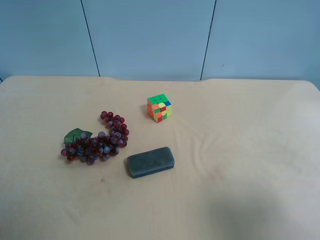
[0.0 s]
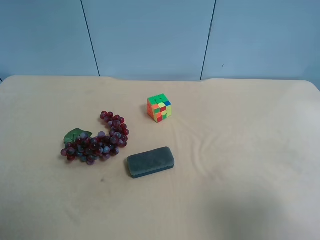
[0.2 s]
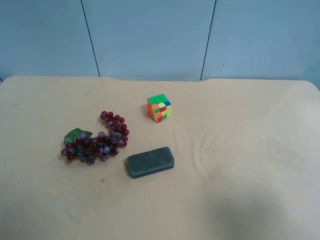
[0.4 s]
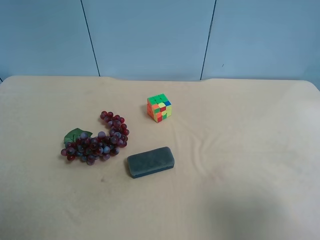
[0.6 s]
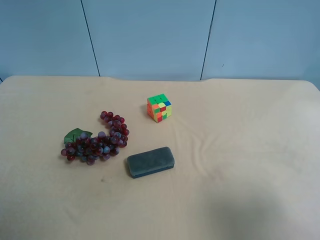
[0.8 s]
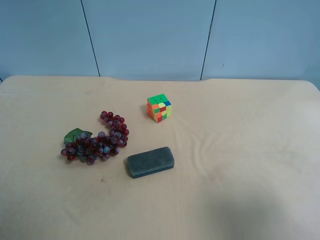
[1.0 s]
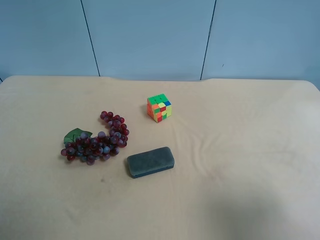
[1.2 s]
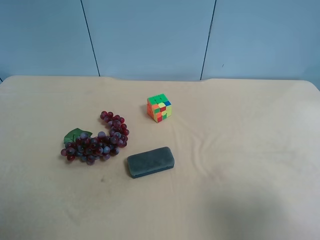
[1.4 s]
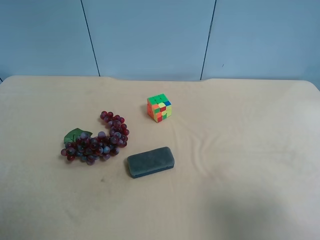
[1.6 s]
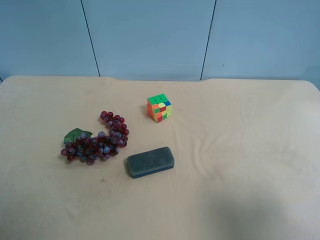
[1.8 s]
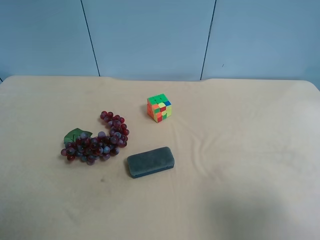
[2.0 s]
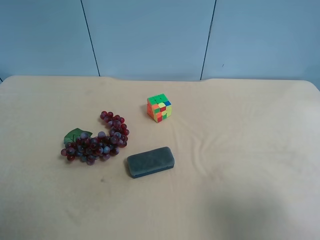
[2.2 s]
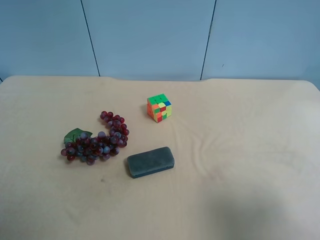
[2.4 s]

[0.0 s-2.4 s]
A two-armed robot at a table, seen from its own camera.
Task of the whole recording: use the right gripper to pick up the item and transfer it from the right gripper to the left gripper.
1.2 to 2.4 s: The two grippers keep their place.

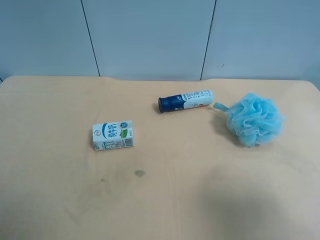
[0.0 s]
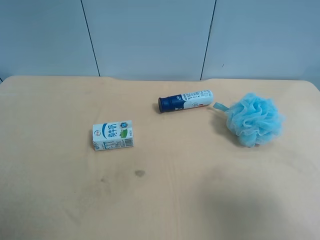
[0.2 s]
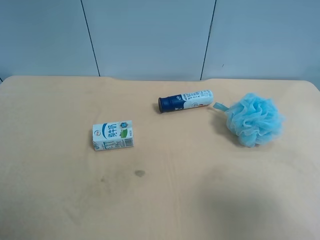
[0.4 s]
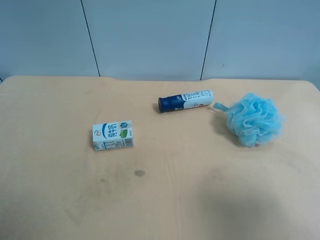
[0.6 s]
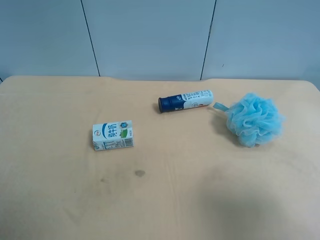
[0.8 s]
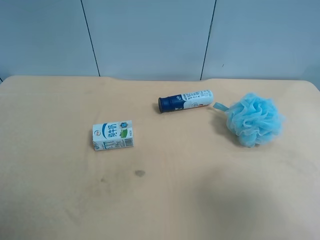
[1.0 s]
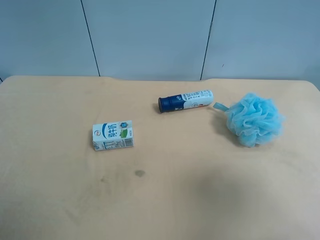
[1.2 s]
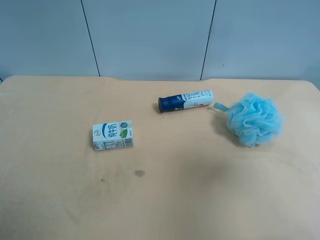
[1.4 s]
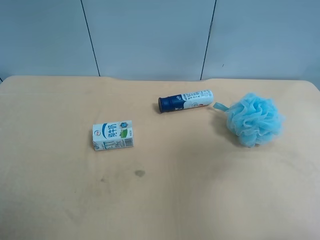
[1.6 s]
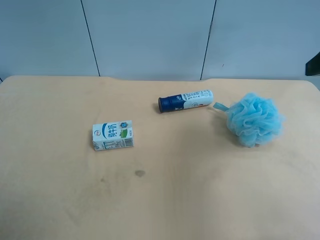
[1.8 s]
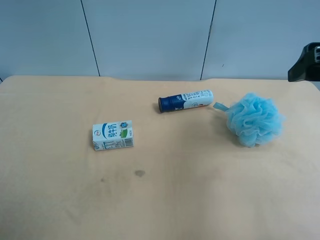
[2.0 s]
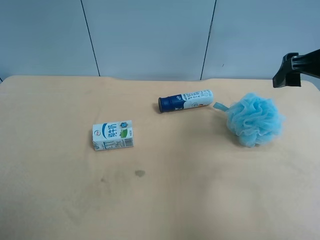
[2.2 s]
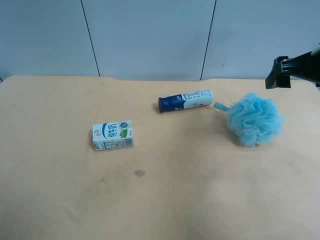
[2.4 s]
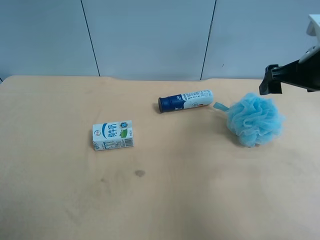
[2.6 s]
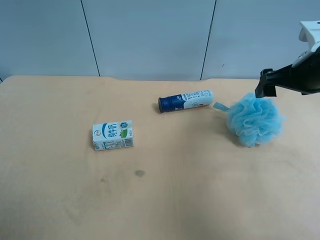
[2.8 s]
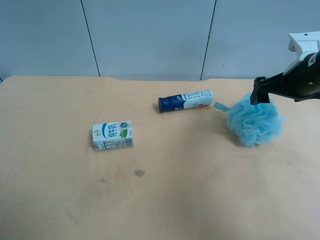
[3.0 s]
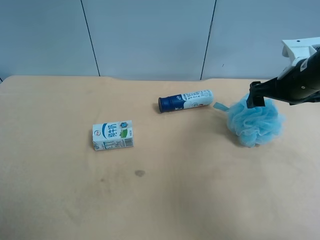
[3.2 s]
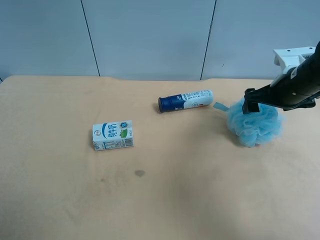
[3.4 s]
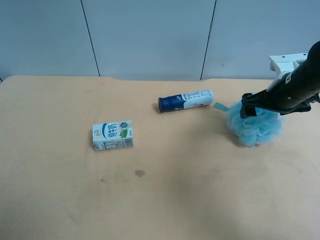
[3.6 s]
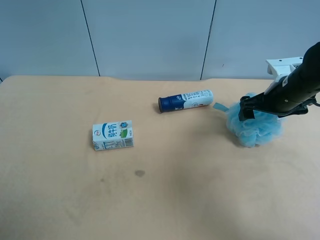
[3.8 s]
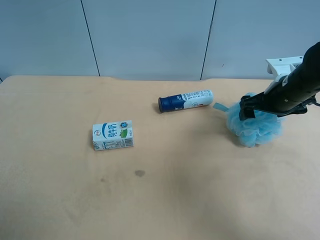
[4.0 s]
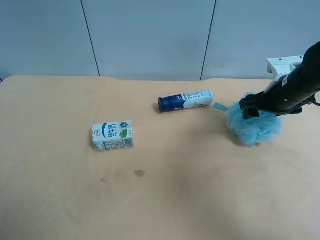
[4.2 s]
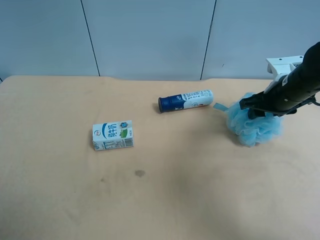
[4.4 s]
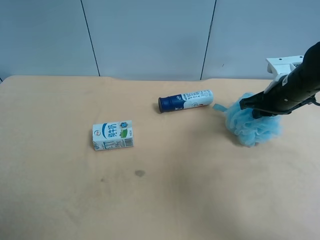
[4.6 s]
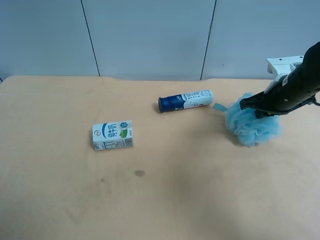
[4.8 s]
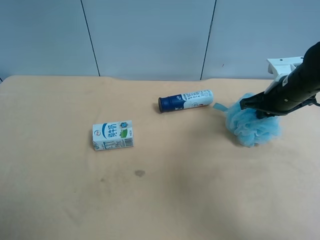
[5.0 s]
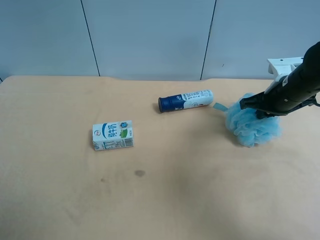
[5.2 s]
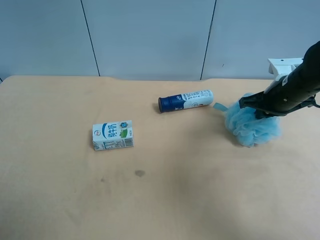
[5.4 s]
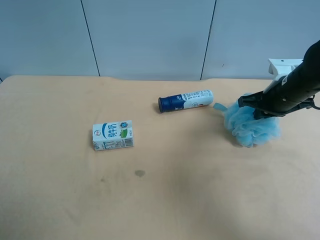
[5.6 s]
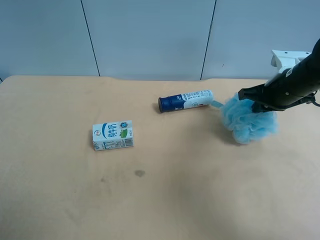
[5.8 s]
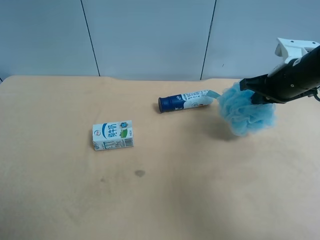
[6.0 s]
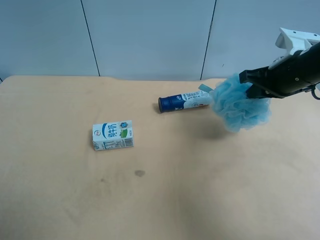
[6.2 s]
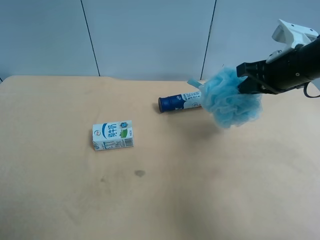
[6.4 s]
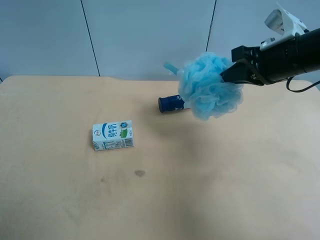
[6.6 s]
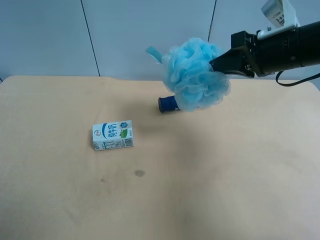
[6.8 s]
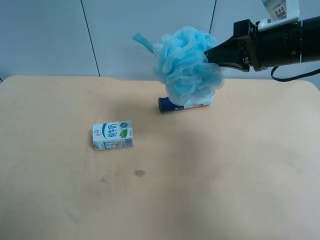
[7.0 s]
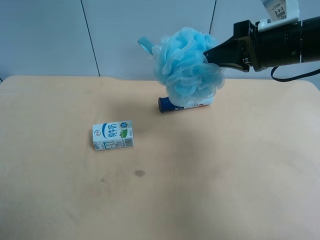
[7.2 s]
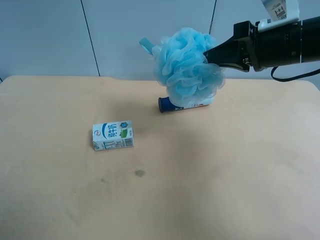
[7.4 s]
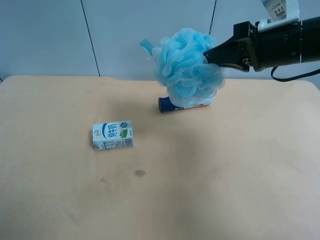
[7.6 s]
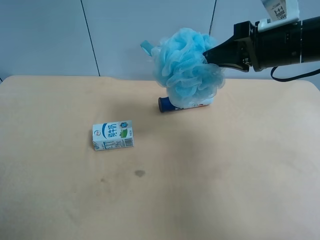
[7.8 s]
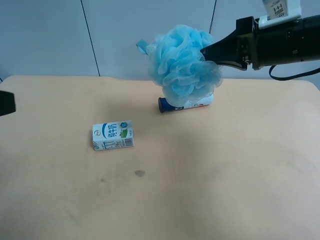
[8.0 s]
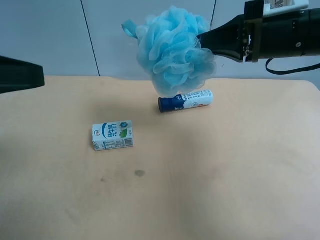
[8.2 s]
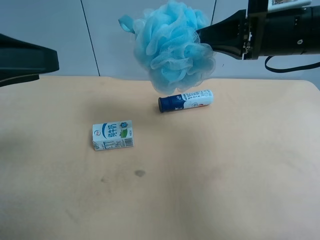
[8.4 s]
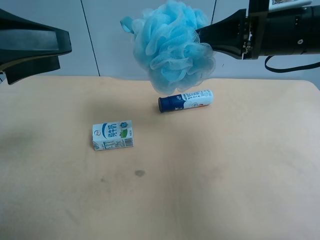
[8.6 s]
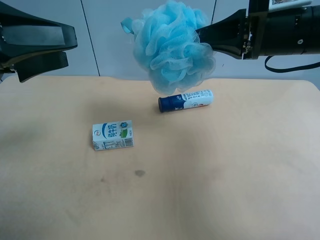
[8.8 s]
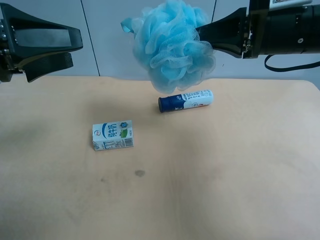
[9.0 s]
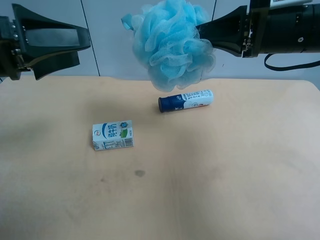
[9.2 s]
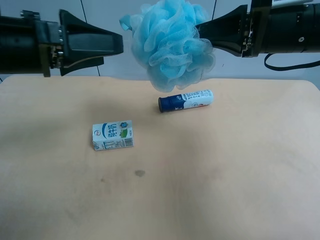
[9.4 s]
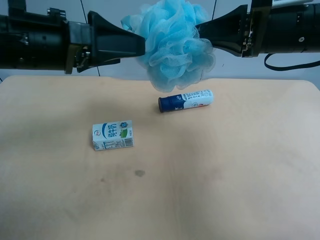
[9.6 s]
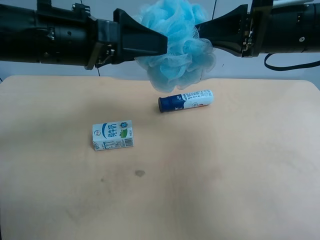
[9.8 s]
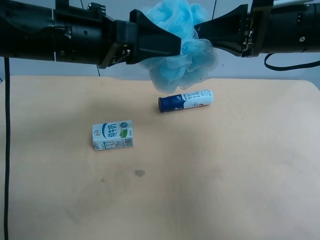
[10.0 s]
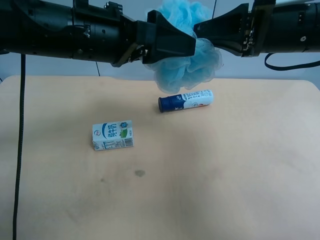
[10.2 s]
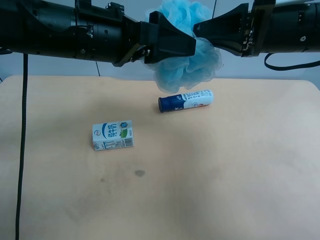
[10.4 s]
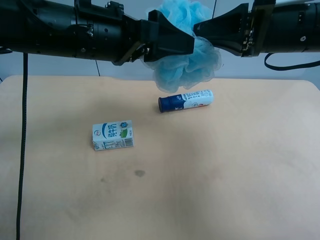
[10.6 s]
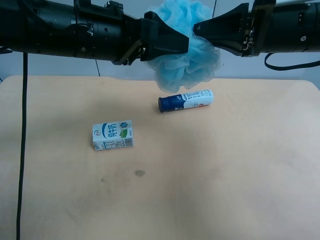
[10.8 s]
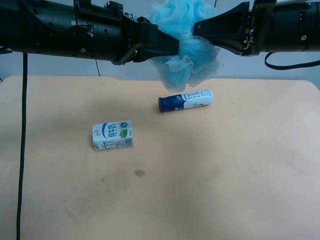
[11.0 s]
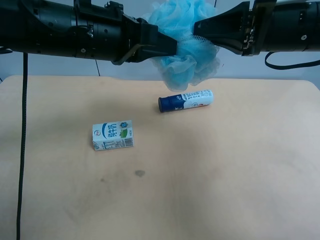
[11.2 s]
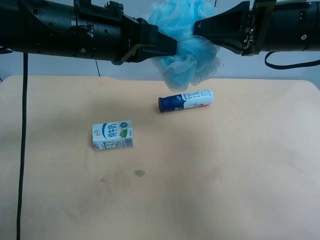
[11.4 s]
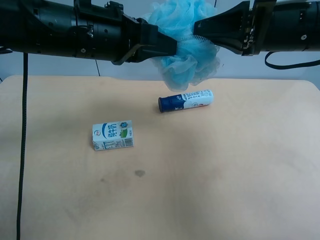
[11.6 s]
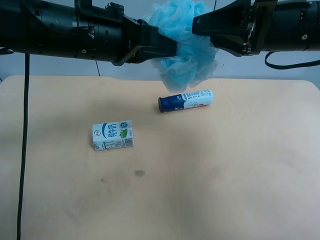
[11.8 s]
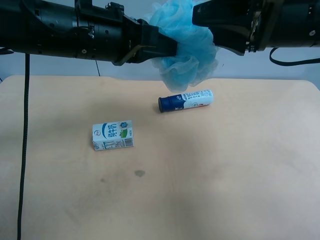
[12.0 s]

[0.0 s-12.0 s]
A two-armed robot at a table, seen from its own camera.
Task of the whole recording: use the right gripper to pick up the item and transfer it from the right gripper to the left gripper.
0.0 to 1.6 s: The right gripper goes about 15 cm forward and upward.
1.6 to 3.0 s: The right gripper shifts roughly 20 cm forward and downward.
3.0 to 4.4 s: The right gripper is displaced downward by about 5 cm, and closes.
4.4 to 6.0 s: The right gripper closes up.
6.0 to 7.6 s: The right gripper is displaced upward and to the left by roughly 10 cm.
7.6 to 9.0 s: The left gripper moves forward, approximately 15 cm.
9.0 to 10.4 s: The left gripper travels to the right by some 15 cm.
10.4 to 12.0 s: The left gripper closes up; the right gripper opens.

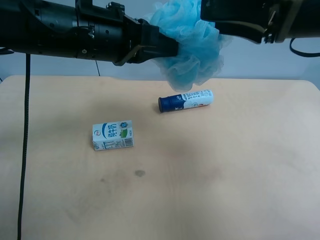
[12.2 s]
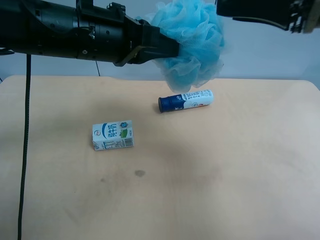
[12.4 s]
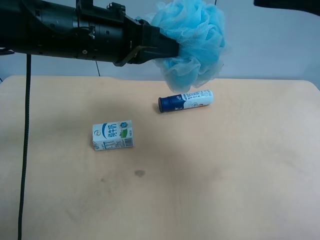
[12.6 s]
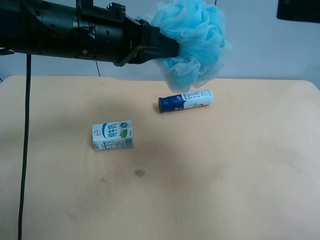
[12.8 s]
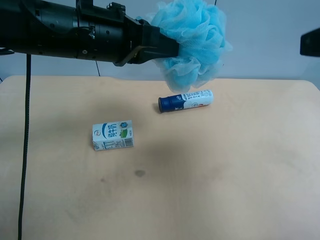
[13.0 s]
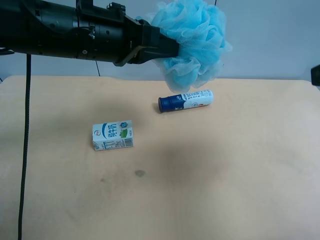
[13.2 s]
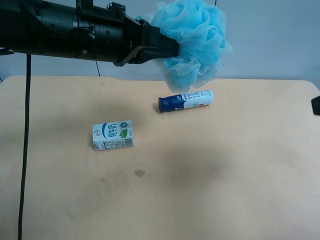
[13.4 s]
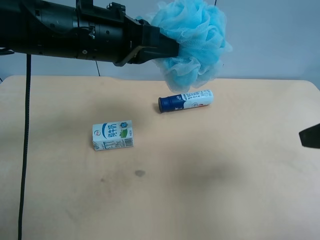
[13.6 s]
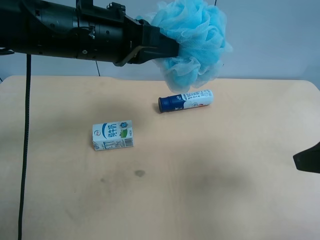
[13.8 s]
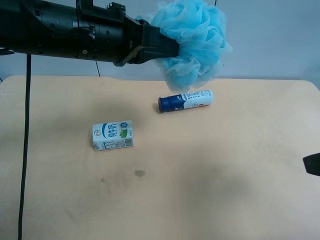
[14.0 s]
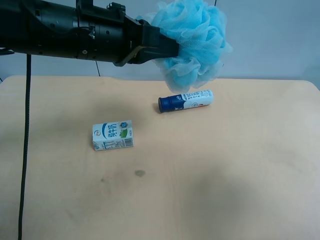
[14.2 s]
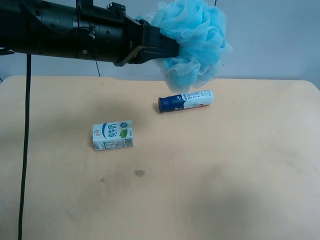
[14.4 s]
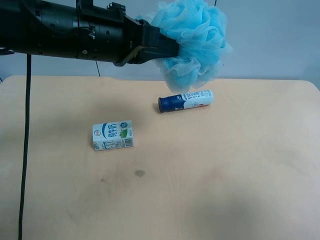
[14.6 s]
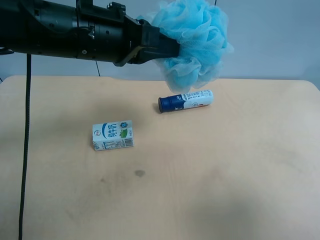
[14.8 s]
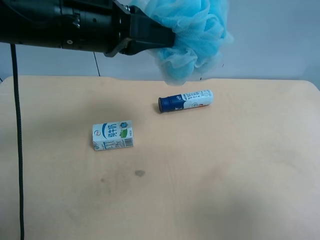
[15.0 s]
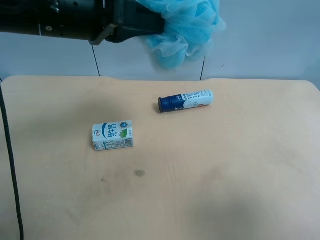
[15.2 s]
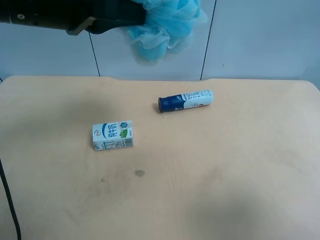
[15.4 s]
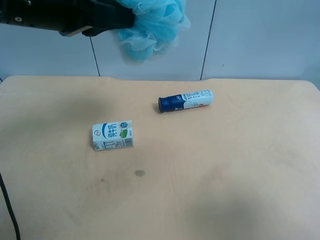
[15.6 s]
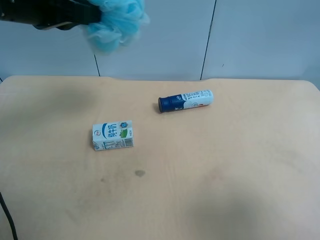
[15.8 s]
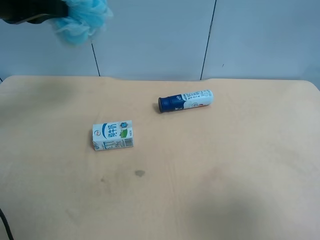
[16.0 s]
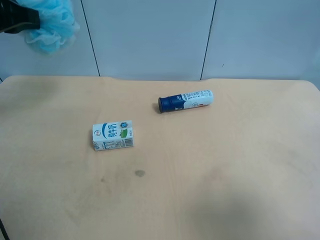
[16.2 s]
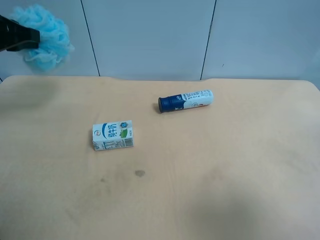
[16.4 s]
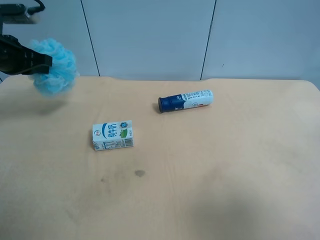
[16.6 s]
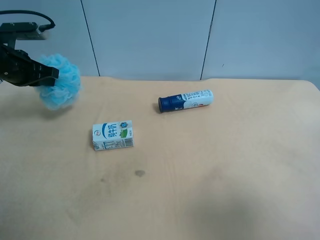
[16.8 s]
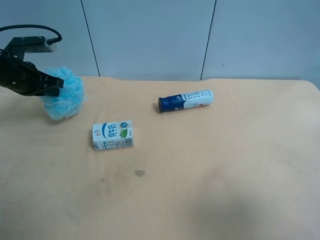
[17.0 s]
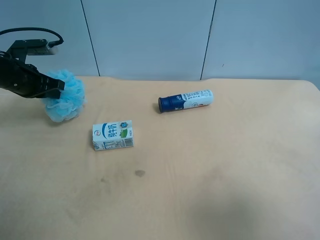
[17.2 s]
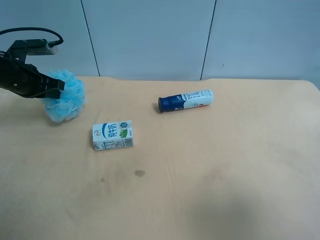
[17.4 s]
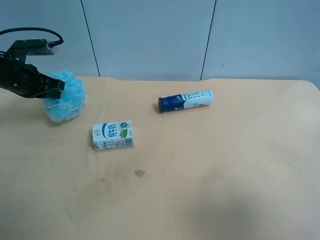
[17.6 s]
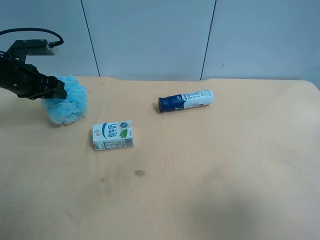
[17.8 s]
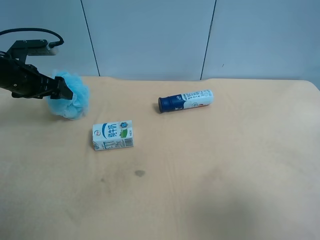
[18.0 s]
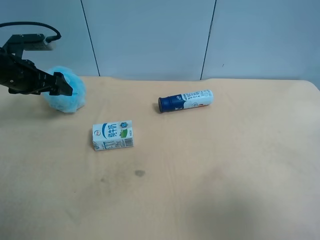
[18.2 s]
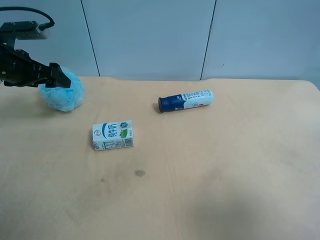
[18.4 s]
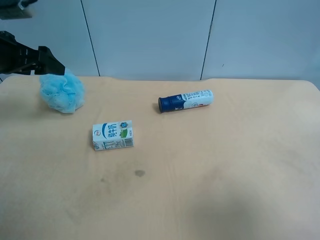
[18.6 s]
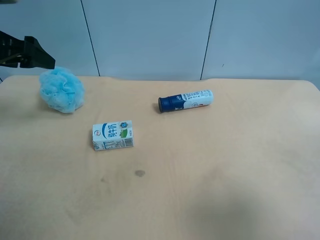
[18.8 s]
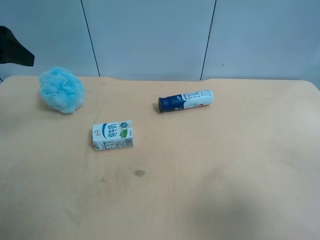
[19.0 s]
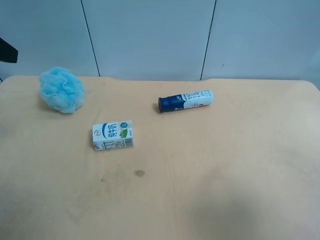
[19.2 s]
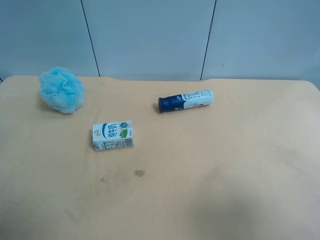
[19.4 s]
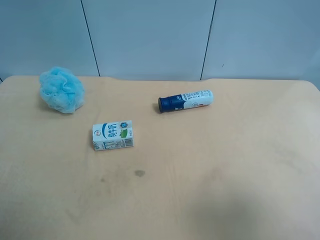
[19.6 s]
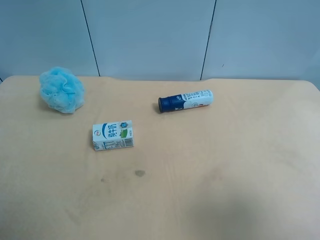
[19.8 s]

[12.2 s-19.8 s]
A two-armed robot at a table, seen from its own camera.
Task of the whole recording: use the right gripper to pick up the item and transfer it from the right gripper to the left gripper.
12.2 to 13.8 s: The right gripper heads backward, to the right and downward, covering roughly 15 cm.
13.8 to 15.2 s: The right gripper moves backward, some 10 cm. The left gripper moves some 5 cm.
15.2 to 16.8 s: The left gripper is displaced to the left, downward and forward by some 25 cm.
16.8 to 18.2 s: The left gripper opens up.
18.2 to 19.8 s: The left gripper heads backward and upward, covering some 30 cm.
